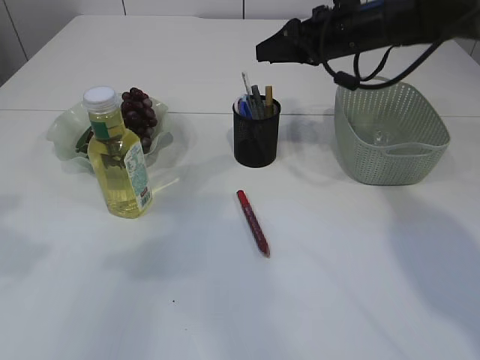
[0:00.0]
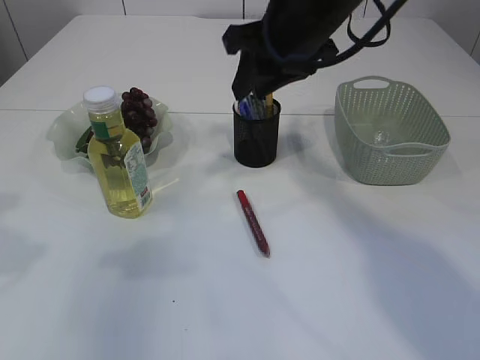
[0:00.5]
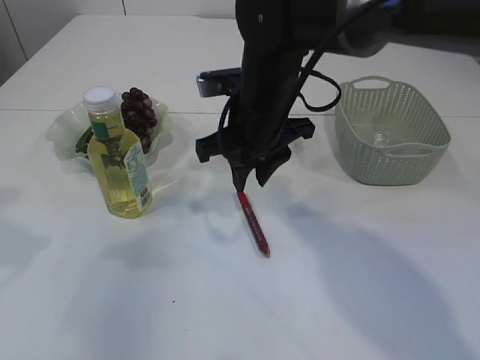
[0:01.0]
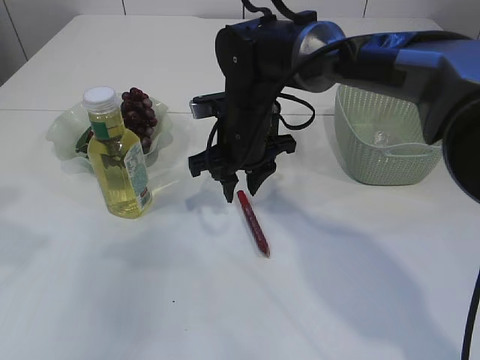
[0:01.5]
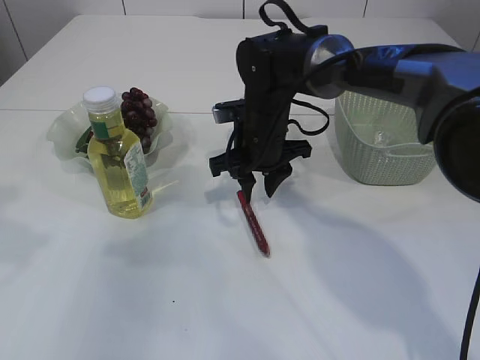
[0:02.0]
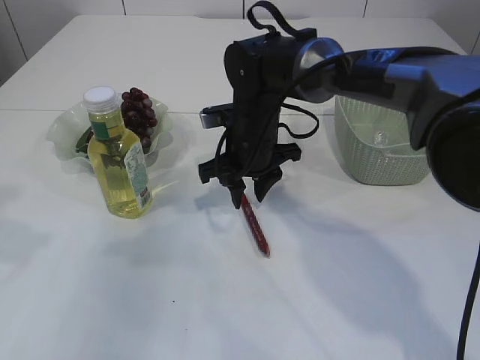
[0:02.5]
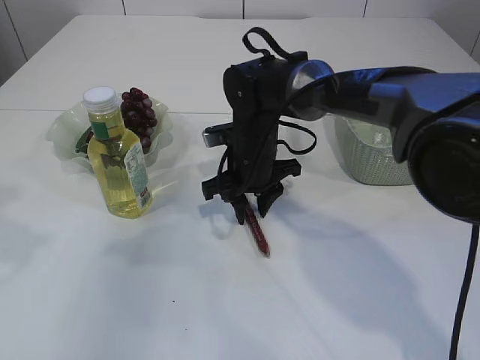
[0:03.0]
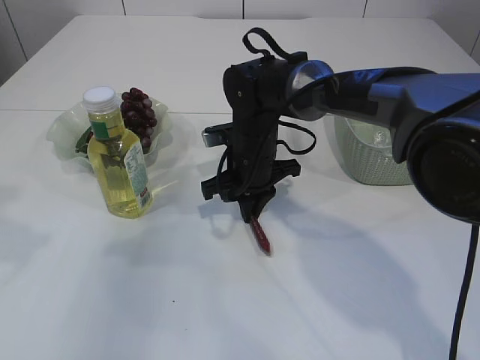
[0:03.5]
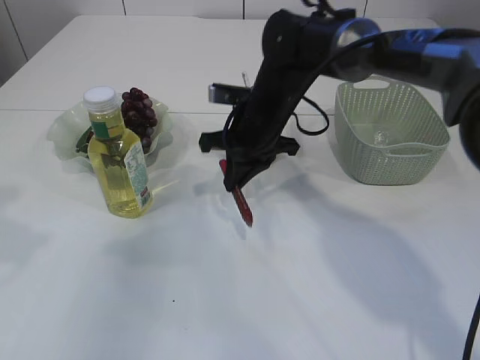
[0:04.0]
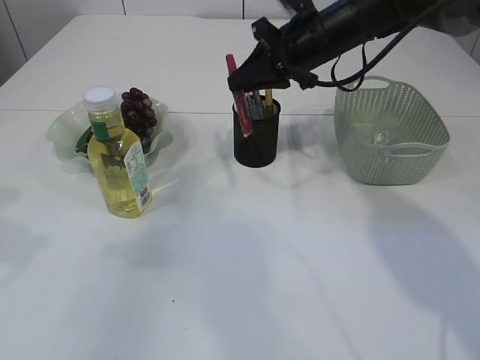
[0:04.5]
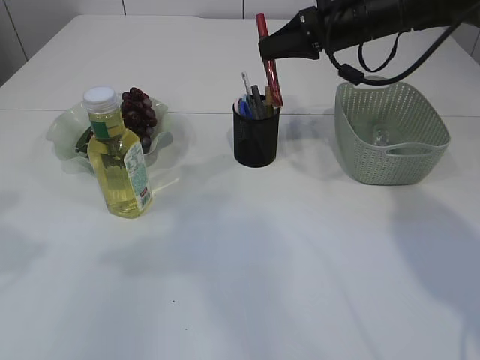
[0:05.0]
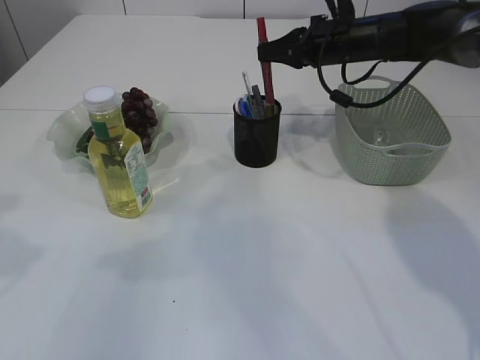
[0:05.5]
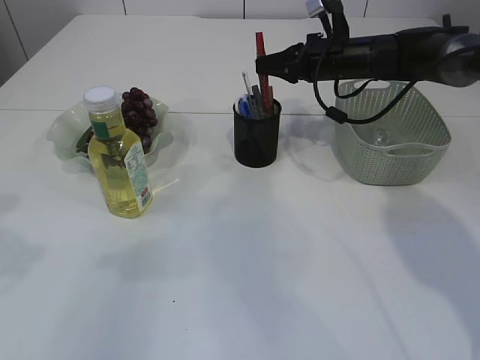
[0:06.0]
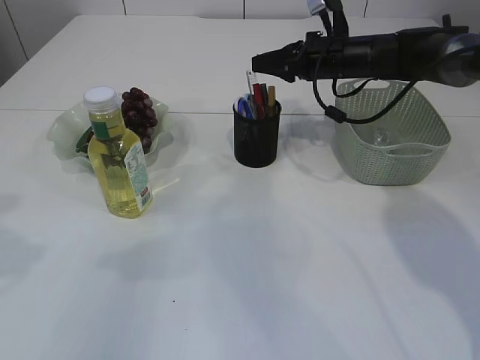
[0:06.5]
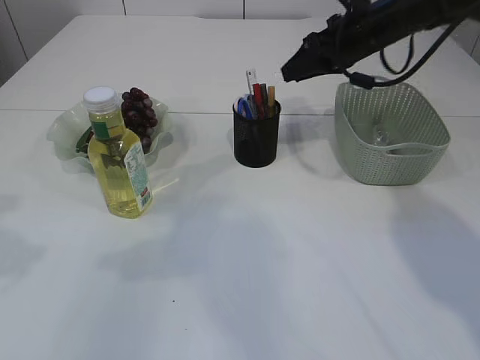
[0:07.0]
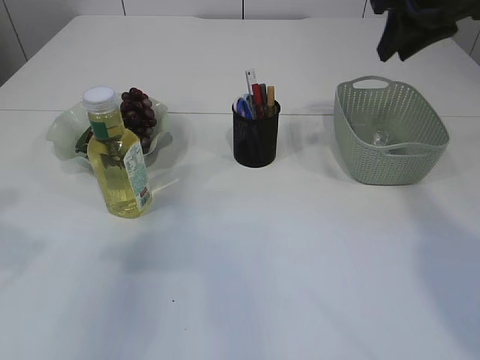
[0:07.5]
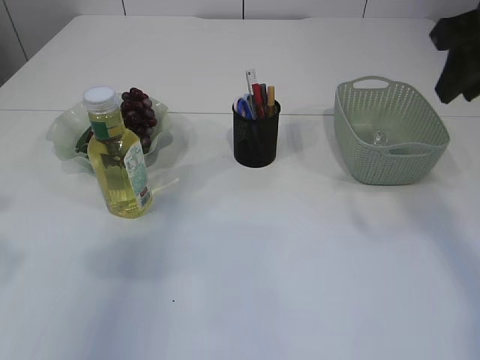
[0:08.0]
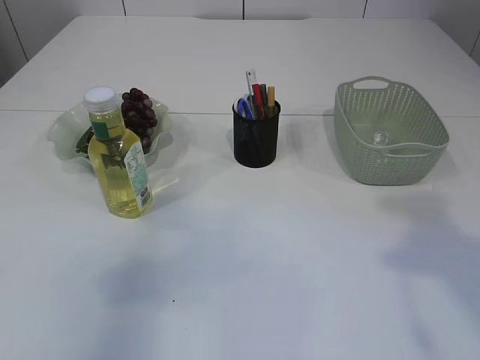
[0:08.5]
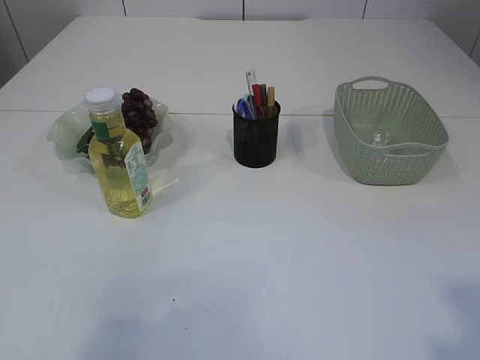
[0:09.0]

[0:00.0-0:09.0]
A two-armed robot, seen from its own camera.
Step, 0:00.5 to 0:04.0: pick up the red glue.
Step, 0:04.5 to 0:06.5: place the red glue into the pen holder.
0:00.0 to 0:02.0: The right gripper goes roughly 15 cm to the left, downward and backward.
0:02.0 to 0:04.5: The right gripper travels upward and to the right by some 15 cm, and closes up.
0:04.5 to 0:07.0: The right gripper shifts some 5 cm to the right, and opens.
0:07.0 to 0:09.0: The right gripper heads backward, covering some 50 cm; the left gripper goes some 15 cm backward and upward, and opens its fingers.
